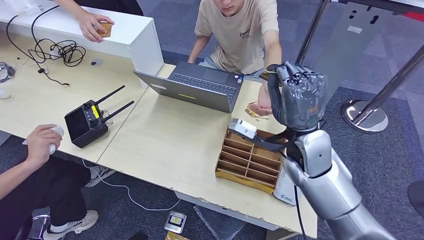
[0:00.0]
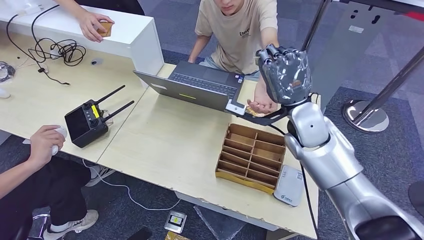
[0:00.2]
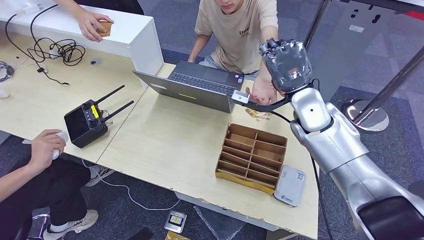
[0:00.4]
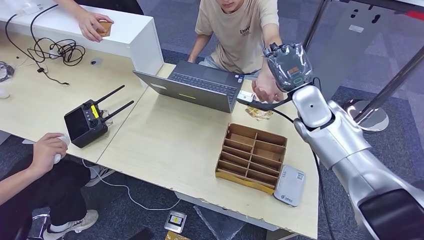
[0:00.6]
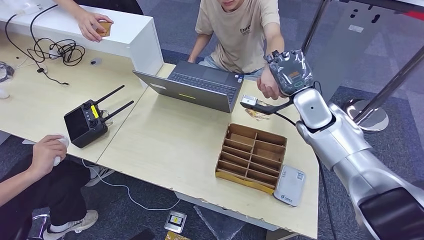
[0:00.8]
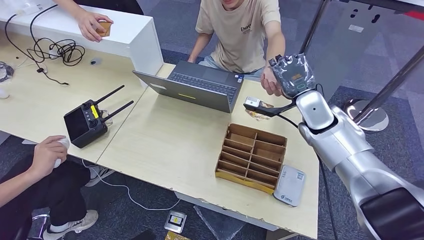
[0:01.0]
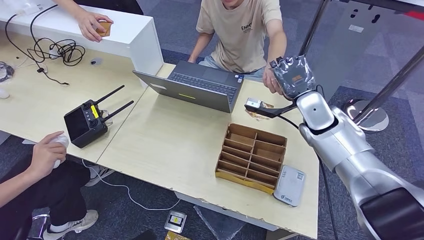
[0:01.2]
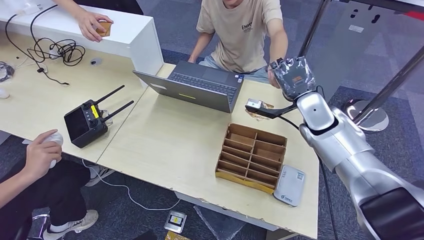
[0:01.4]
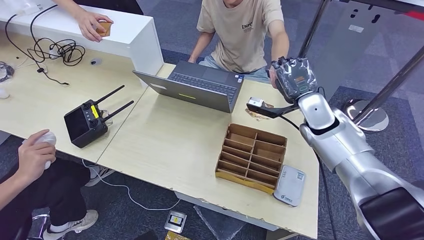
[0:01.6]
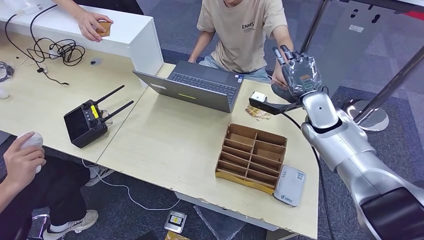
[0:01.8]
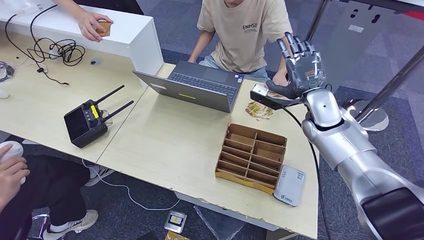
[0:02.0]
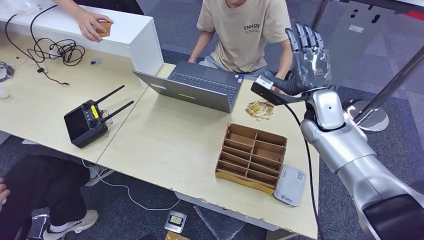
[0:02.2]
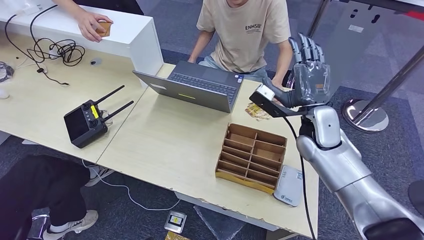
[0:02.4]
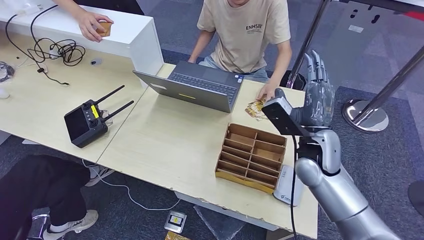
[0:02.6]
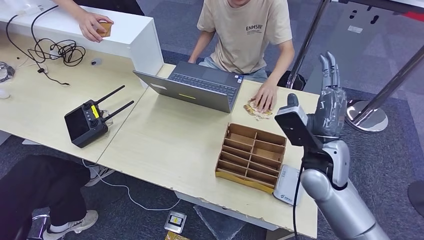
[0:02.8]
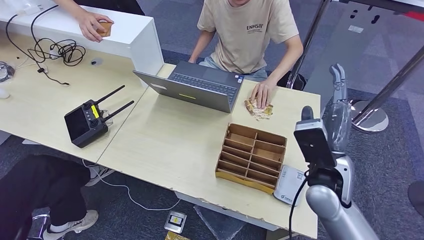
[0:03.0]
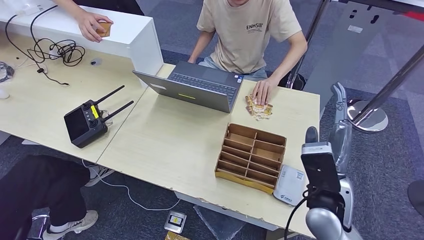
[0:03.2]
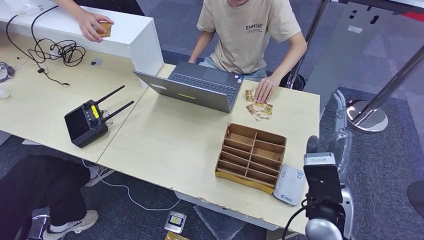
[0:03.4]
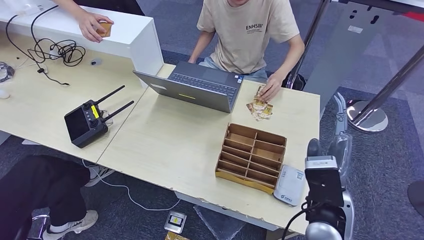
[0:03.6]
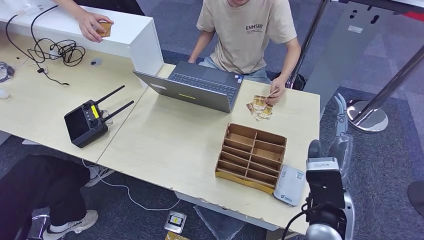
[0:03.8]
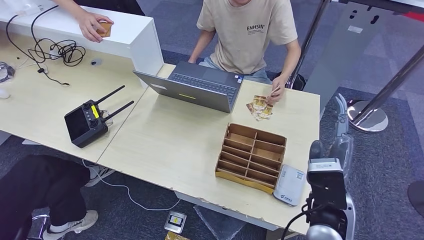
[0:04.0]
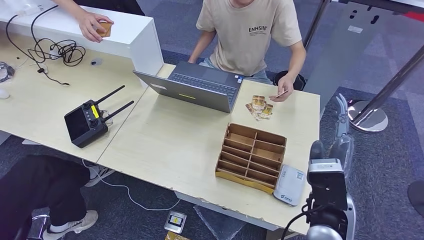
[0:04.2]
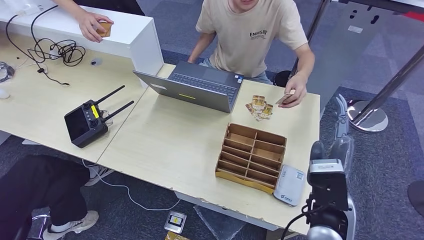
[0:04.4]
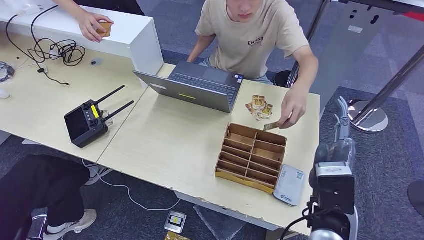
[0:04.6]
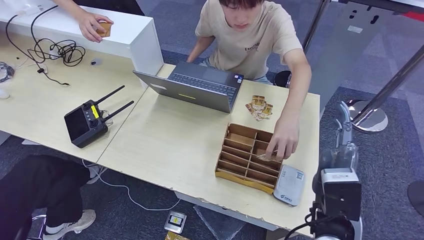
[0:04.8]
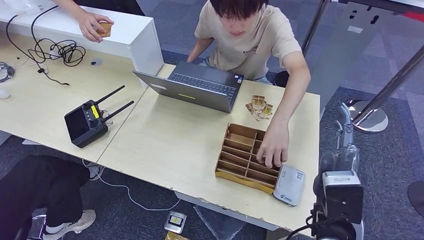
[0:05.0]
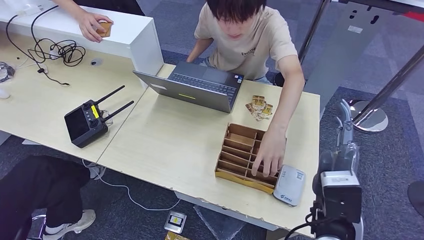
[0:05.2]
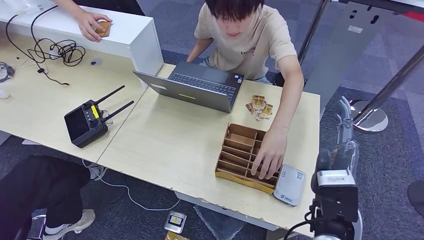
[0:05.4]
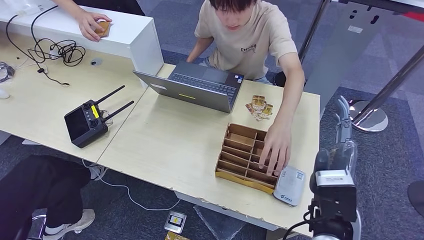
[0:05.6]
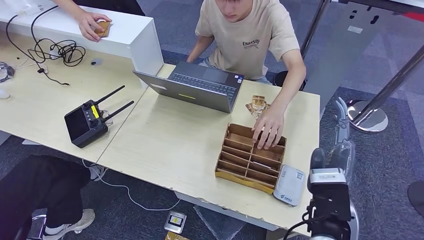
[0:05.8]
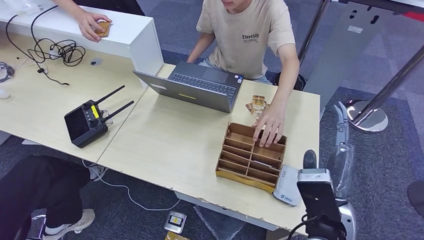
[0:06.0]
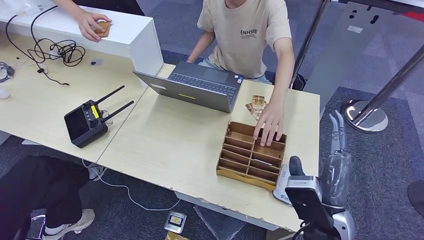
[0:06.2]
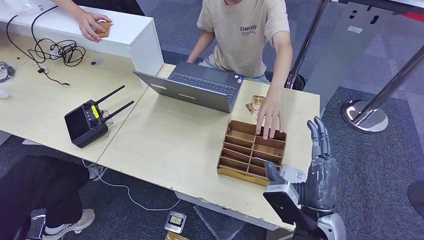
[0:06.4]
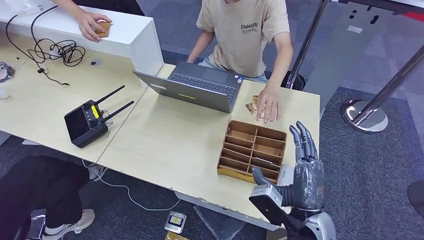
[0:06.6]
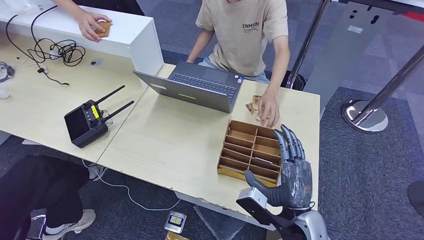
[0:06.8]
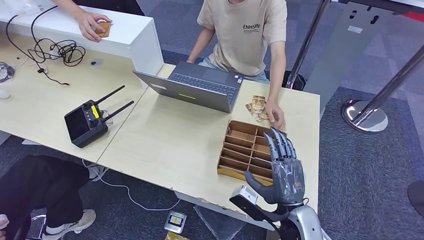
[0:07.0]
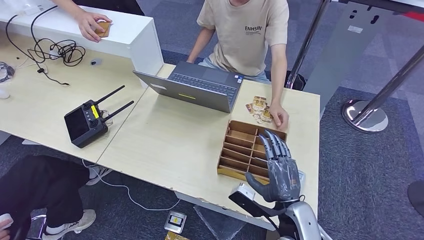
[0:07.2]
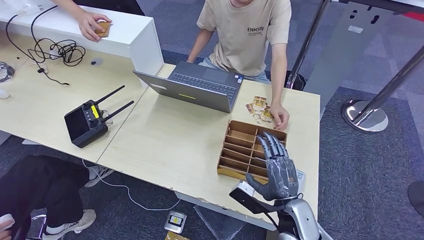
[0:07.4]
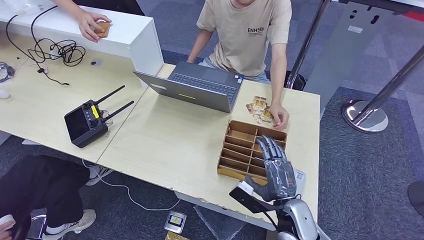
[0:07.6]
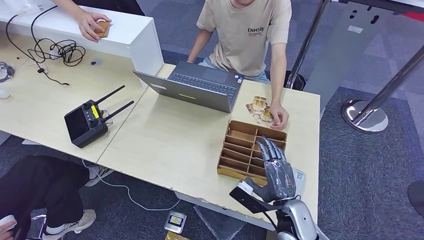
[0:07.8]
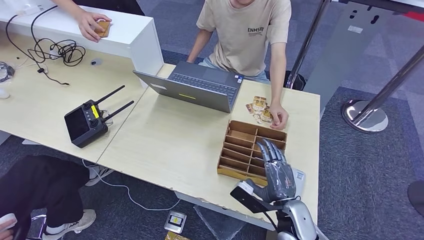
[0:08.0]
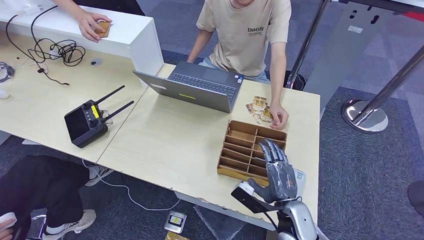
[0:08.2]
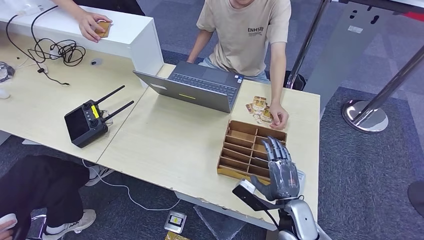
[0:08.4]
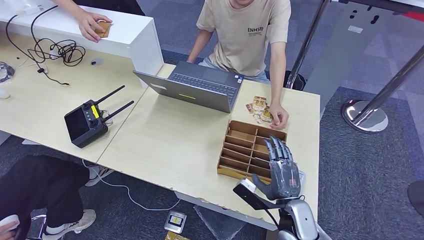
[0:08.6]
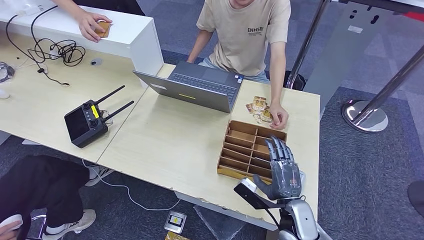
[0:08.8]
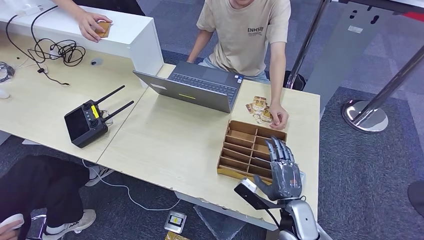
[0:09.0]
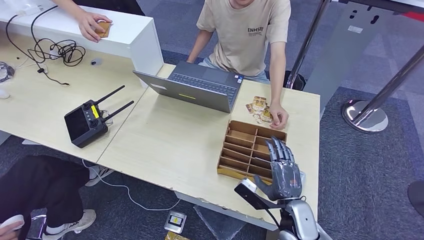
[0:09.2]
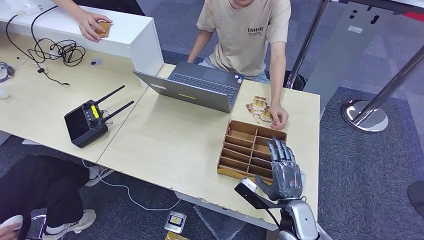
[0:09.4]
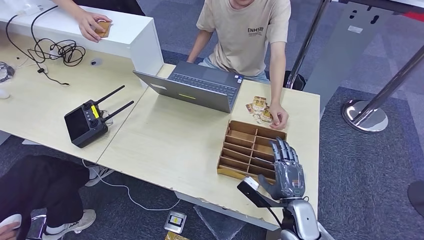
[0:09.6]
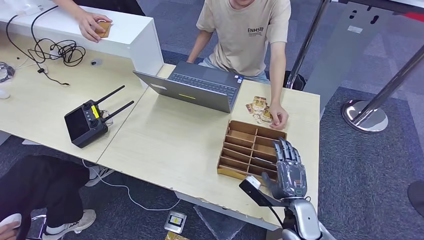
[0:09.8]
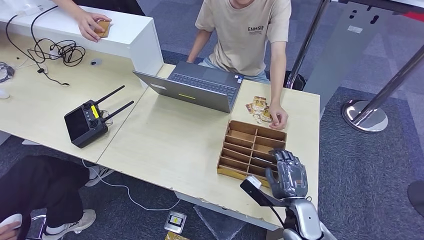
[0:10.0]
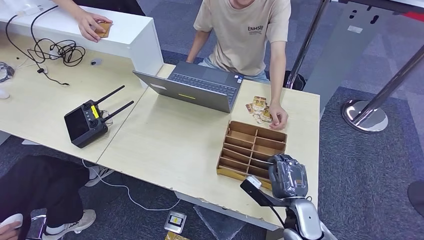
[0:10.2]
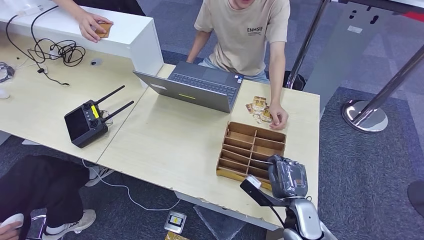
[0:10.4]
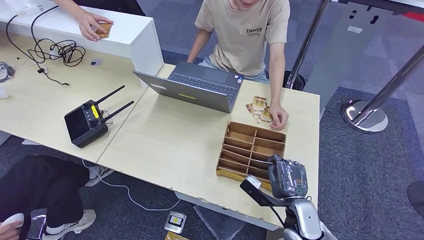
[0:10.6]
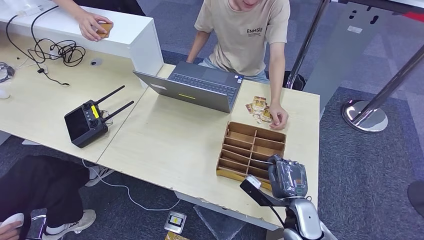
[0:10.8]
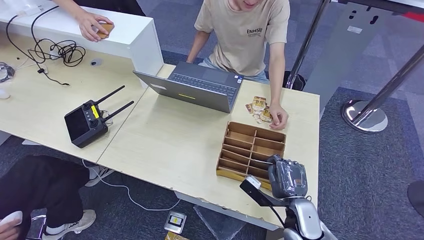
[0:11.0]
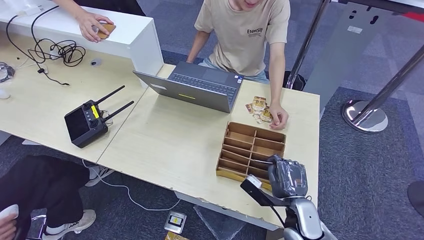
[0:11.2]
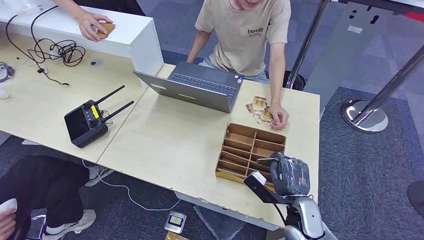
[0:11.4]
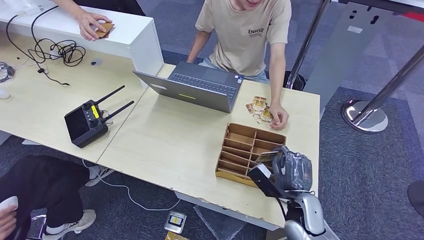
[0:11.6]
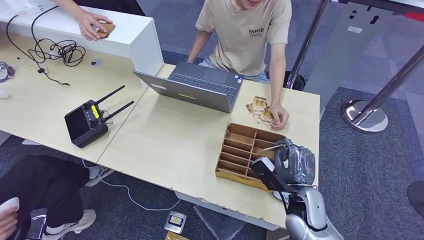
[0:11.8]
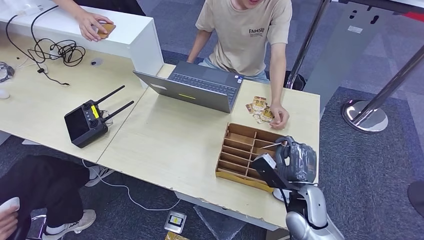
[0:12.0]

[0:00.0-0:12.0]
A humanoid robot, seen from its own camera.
Step, 0:00.8 to 0:11.6: Pick up the room key from the key card box.
0:01.6 to 0:03.0: The right hand moves backward, approximately 15 cm.
0:03.0 to 0:04.4: The right hand moves backward, some 5 cm.
0:04.4 to 0:06.0: There are only small adjustments of the hands.
0:06.0 to 0:07.6: The right hand goes some 10 cm downward.
0:07.6 to 0:12.0: The hands make only small movements.

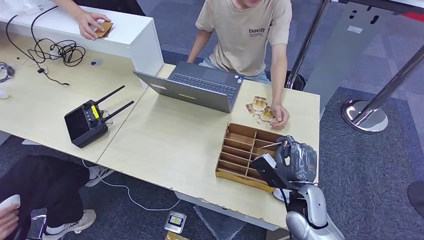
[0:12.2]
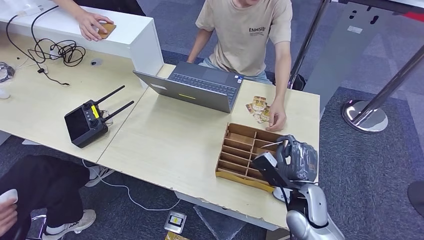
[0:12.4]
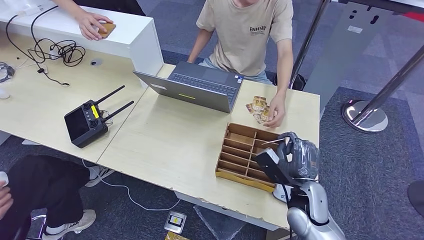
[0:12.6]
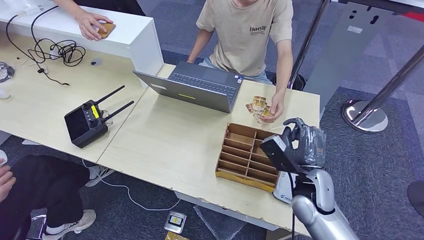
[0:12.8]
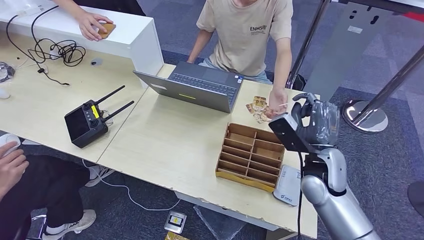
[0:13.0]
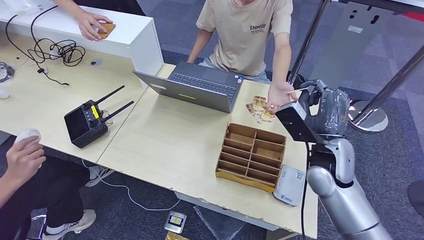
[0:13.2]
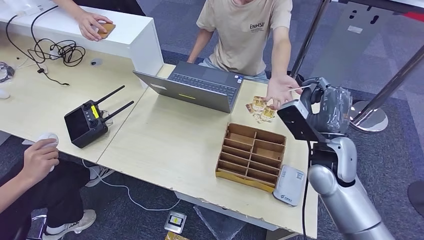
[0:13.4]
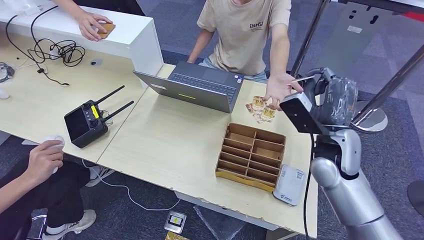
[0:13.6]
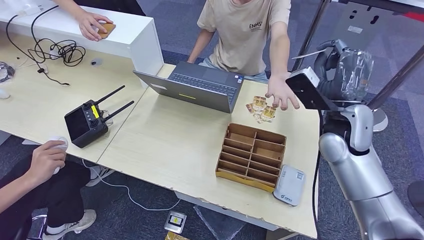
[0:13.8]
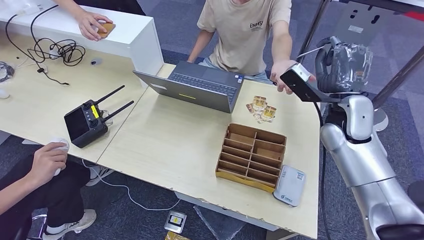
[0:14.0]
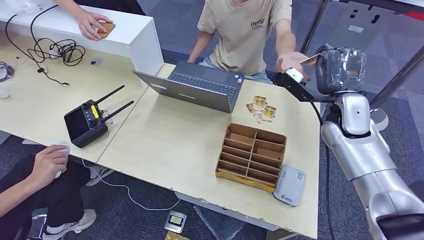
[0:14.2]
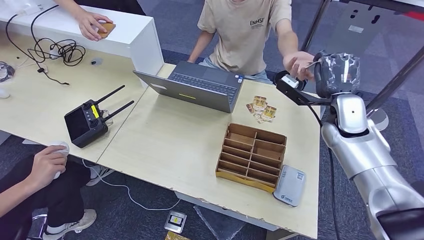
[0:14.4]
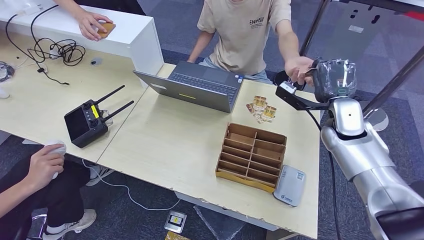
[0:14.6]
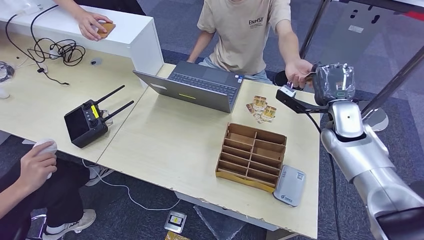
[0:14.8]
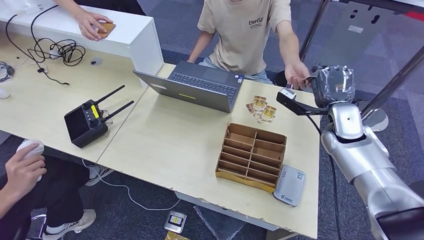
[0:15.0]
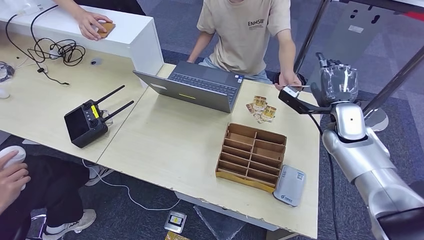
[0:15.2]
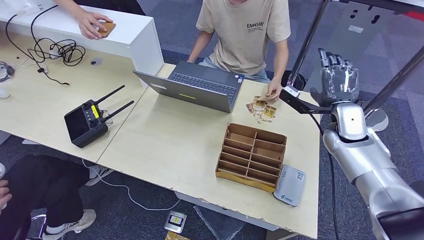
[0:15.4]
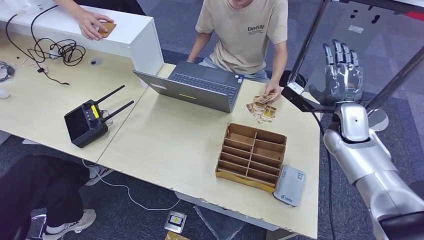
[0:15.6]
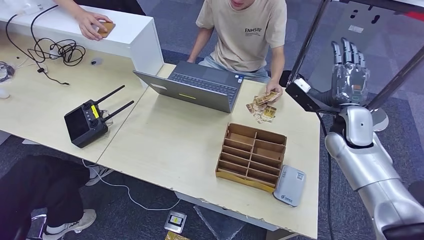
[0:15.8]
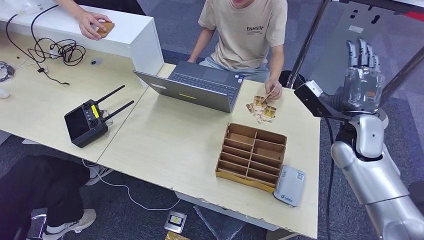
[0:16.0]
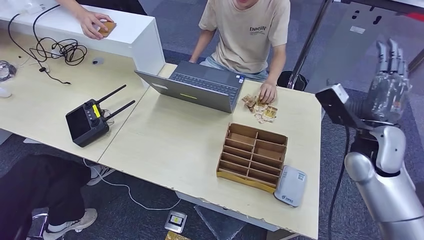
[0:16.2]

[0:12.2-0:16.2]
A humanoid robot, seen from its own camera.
Step, 0:12.2 to 0:16.2: Hand the room key to the person.
0:12.2 to 0:13.6: The right hand travels upward and forward by approximately 15 cm.
0:13.6 to 0:14.8: The right hand travels forward and to the right by roughly 10 cm.
